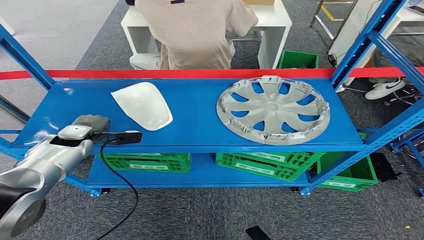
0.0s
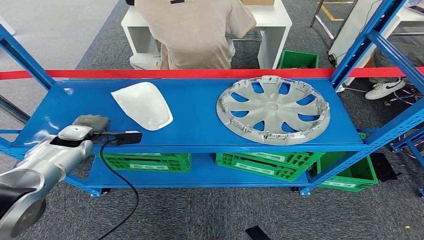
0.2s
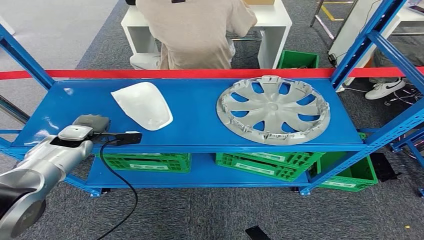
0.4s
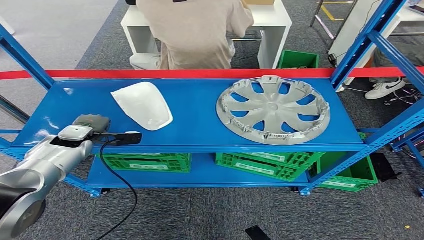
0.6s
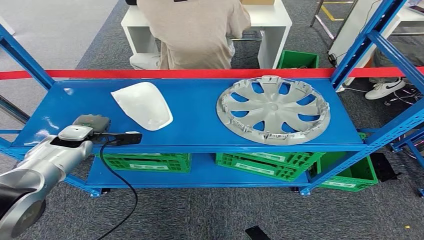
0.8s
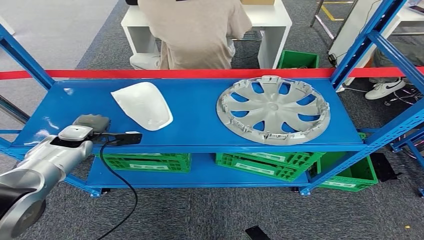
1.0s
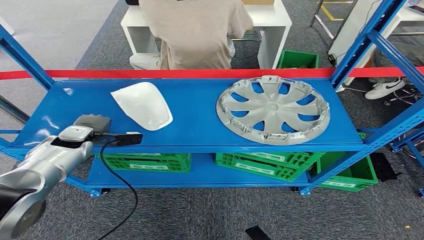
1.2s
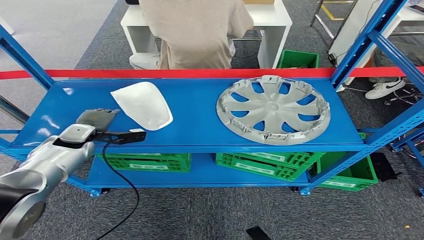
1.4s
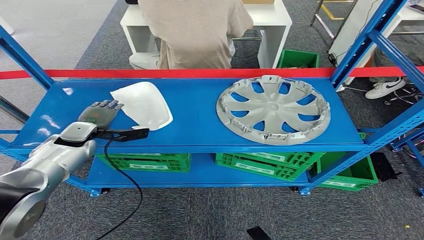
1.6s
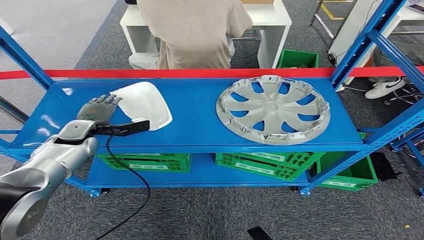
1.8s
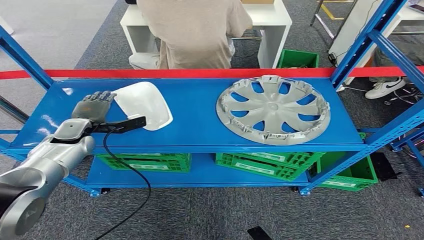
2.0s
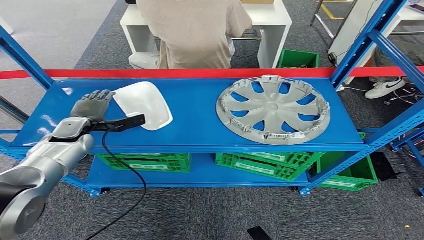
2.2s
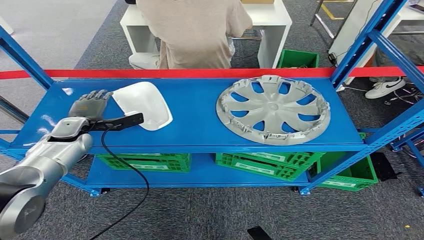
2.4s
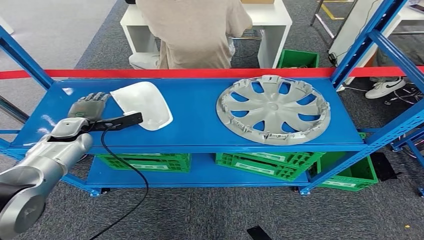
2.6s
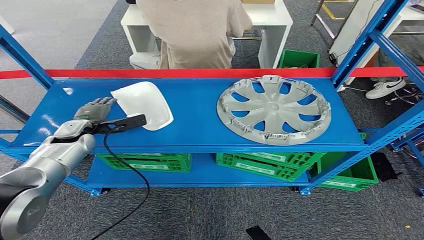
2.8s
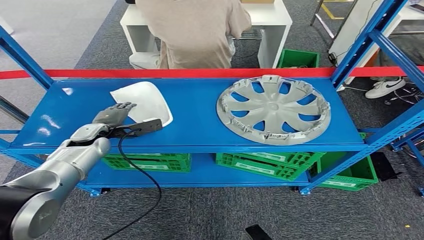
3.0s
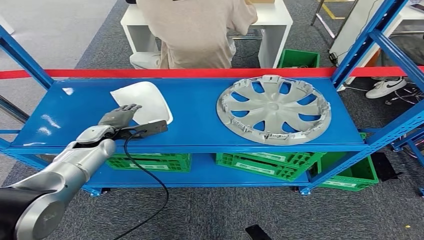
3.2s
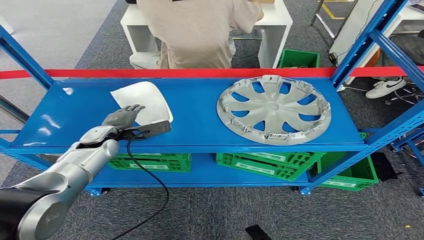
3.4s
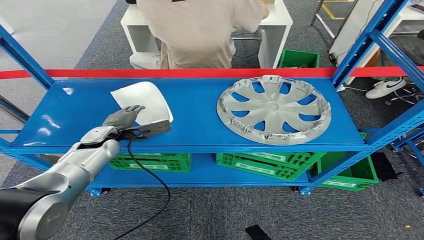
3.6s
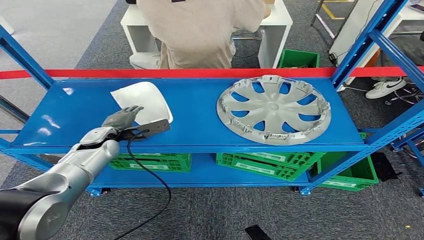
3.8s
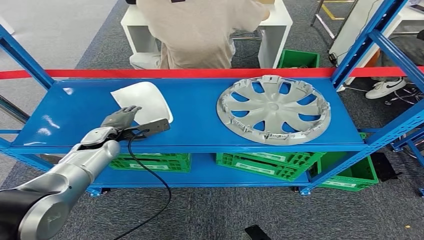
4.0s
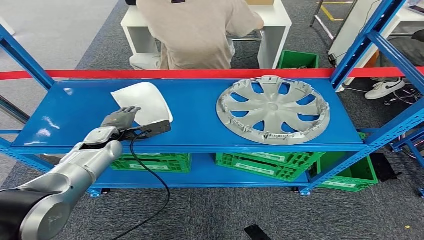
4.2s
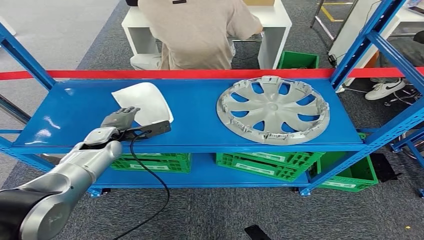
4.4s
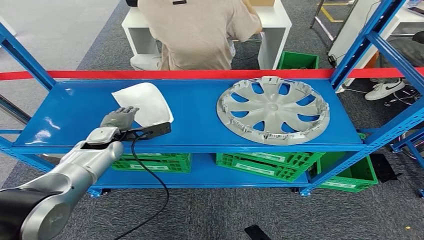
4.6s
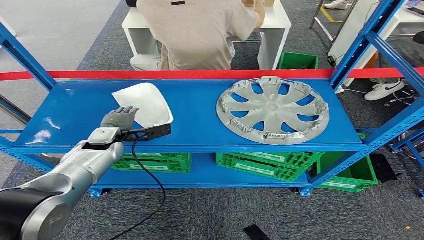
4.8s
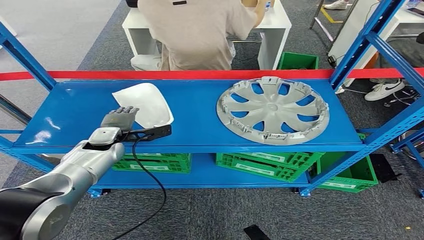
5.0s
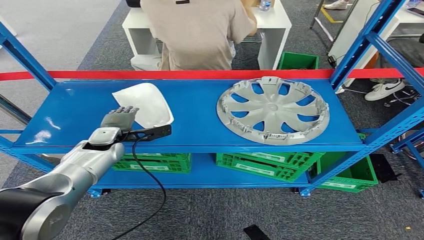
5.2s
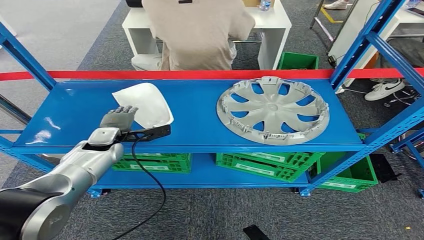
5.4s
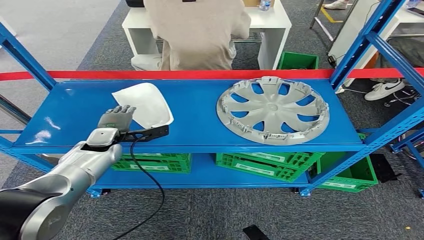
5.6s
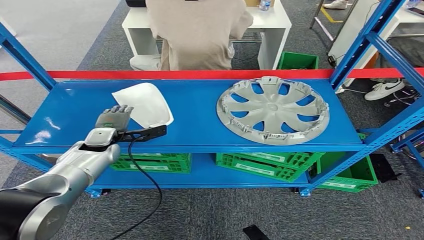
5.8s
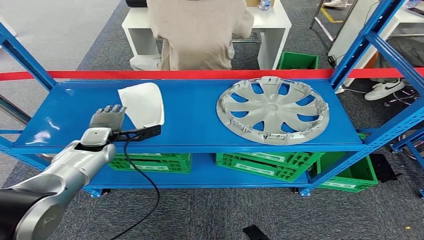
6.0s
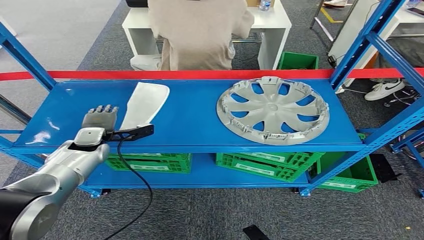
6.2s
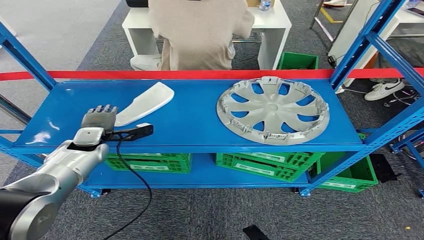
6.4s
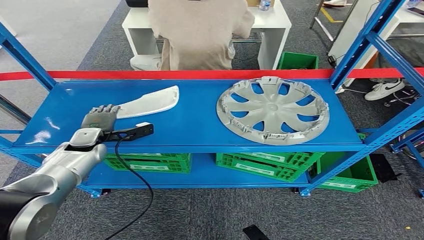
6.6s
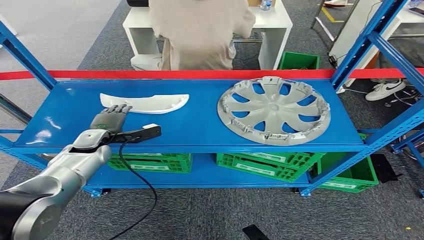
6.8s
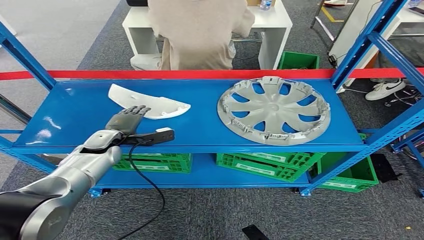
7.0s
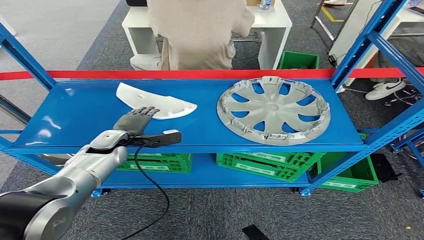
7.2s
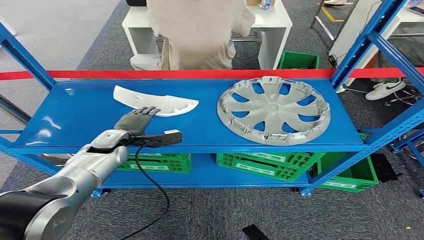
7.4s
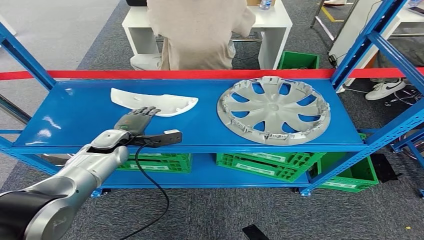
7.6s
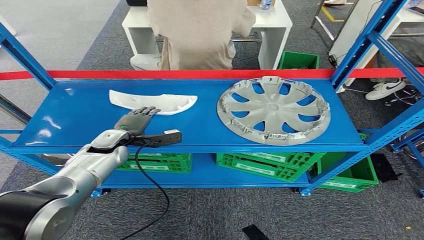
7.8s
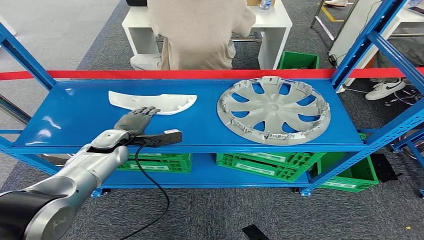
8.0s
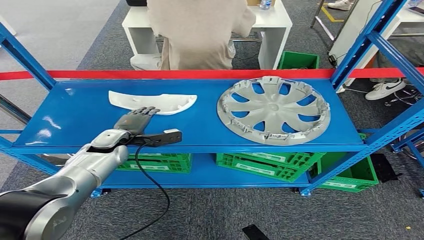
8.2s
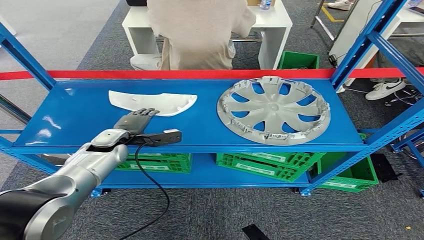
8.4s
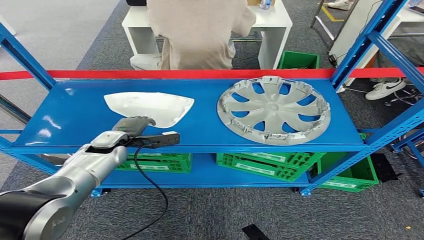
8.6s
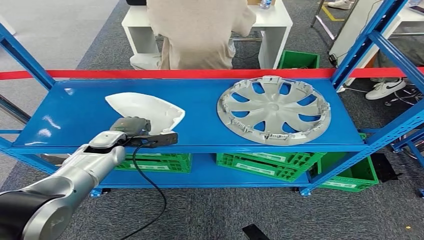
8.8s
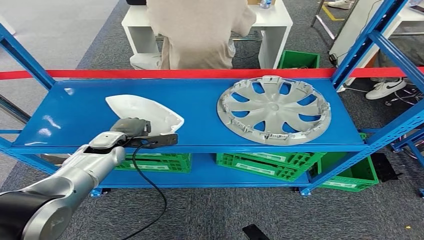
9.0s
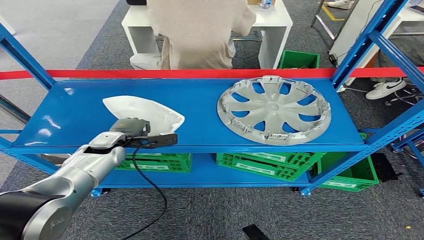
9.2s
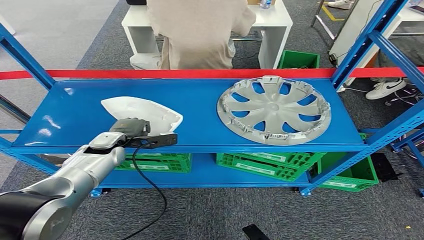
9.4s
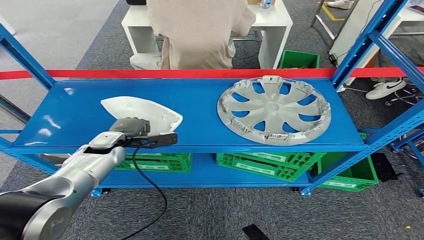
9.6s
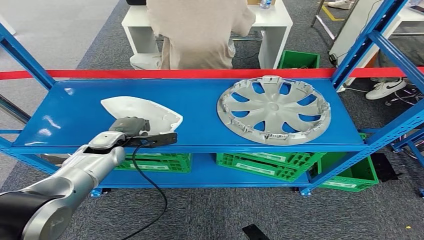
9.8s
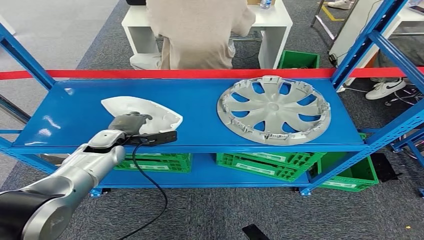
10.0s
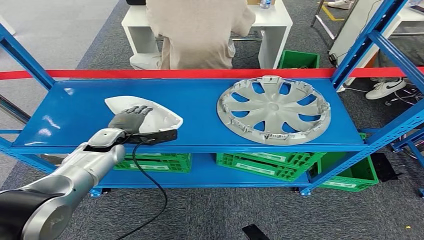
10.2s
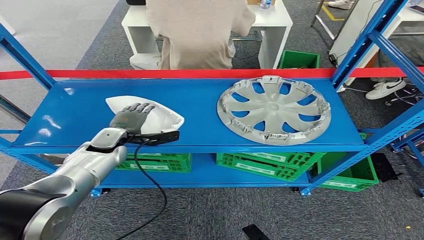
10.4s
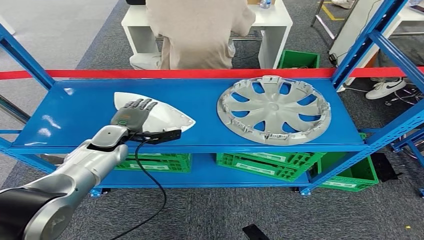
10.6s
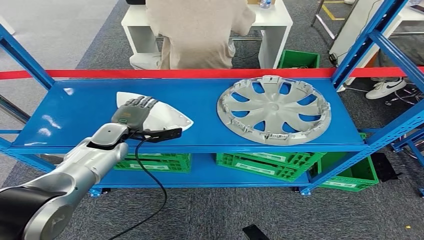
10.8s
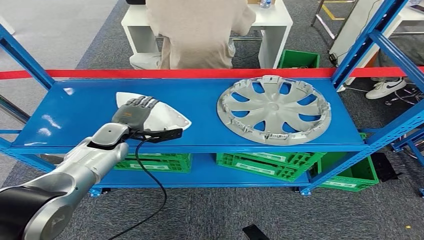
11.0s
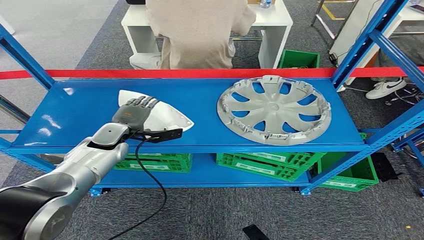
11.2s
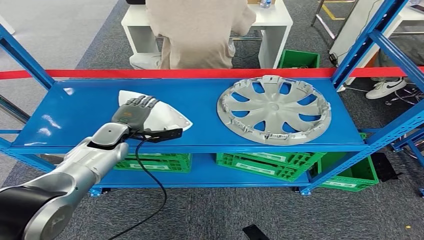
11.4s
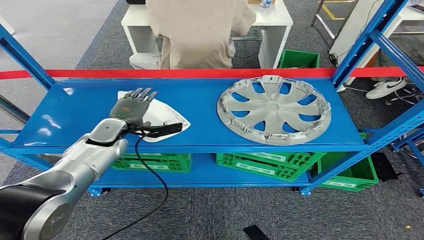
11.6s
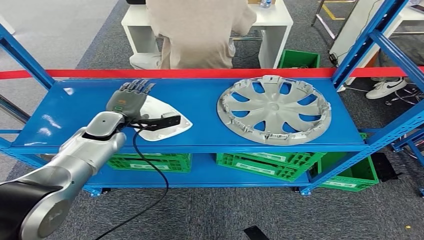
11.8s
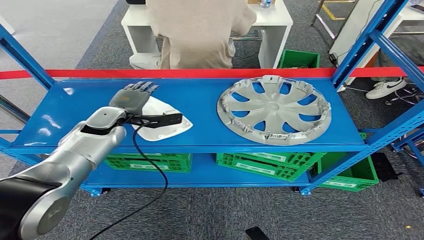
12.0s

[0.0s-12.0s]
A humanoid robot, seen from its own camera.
0.0s to 1.6s: The hands stay close to where they were, moving slightly.
3.0s to 6.0s: There are only small adjustments of the hands.
7.6s to 10.4s: The hands stay close to where they were, moving slightly.
10.4s to 12.0s: The left hand shifts roughly 5 cm upward.

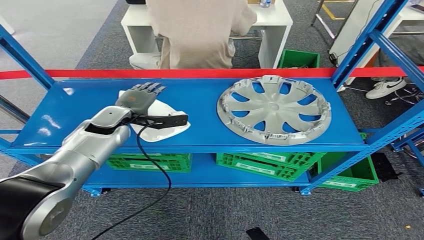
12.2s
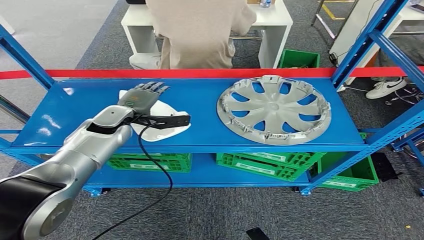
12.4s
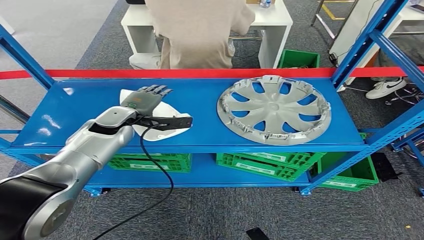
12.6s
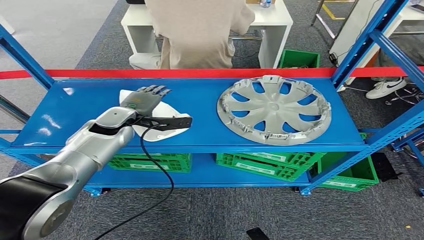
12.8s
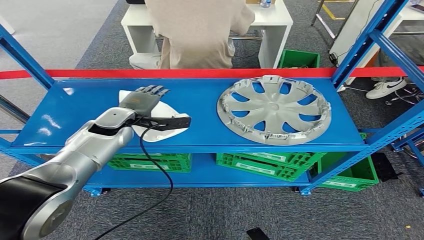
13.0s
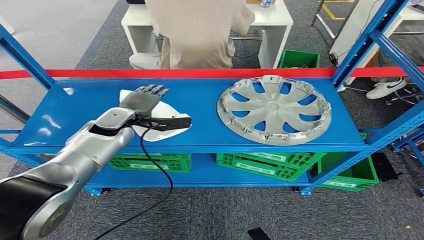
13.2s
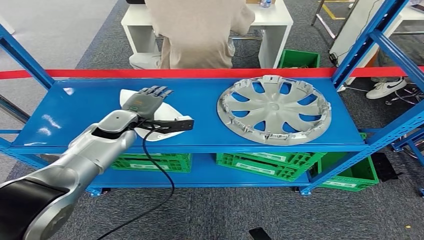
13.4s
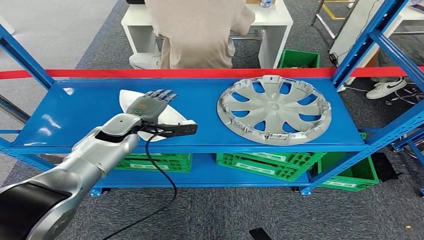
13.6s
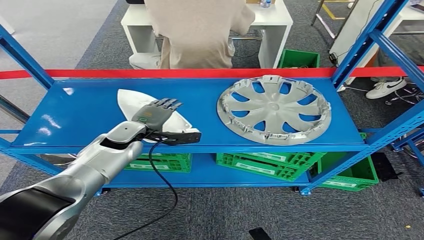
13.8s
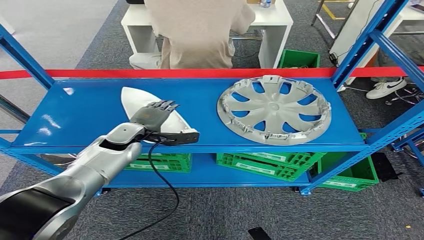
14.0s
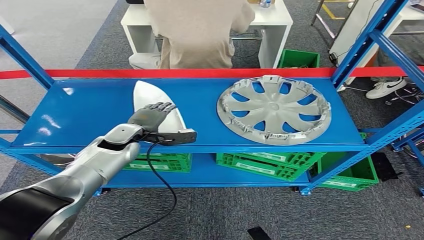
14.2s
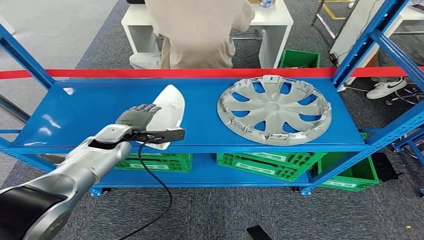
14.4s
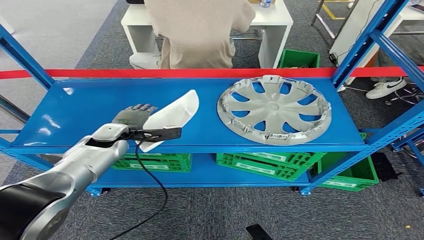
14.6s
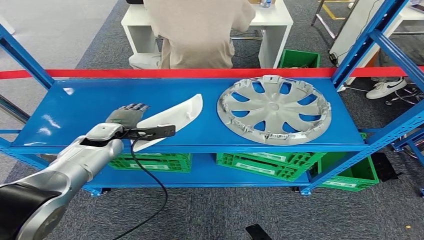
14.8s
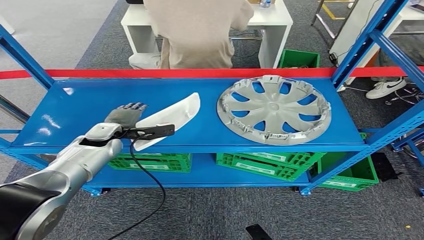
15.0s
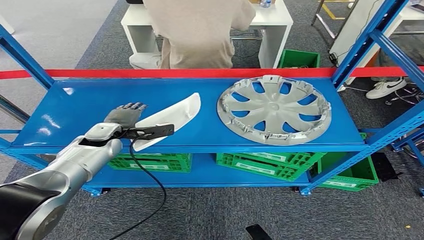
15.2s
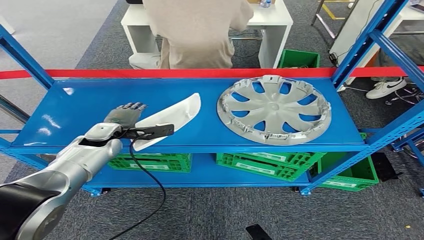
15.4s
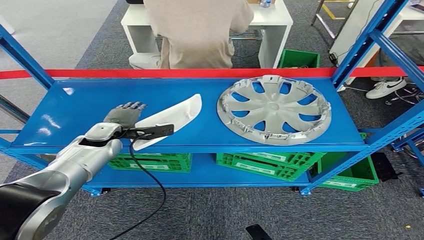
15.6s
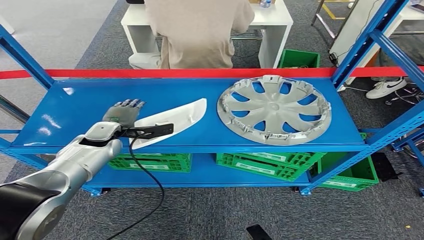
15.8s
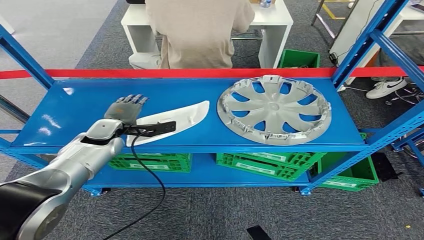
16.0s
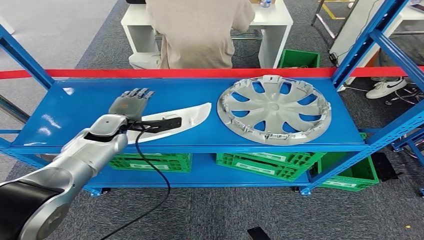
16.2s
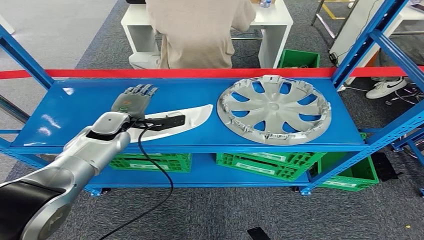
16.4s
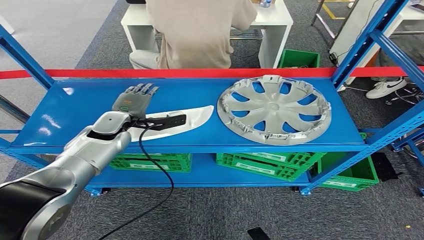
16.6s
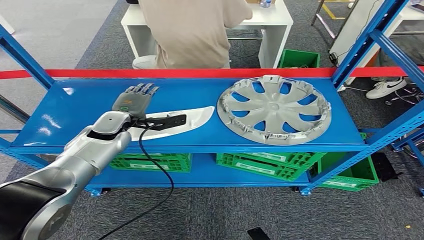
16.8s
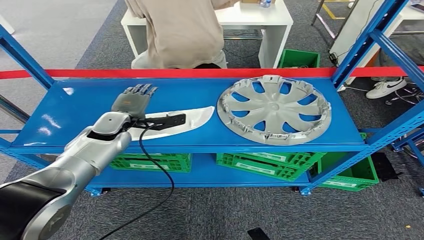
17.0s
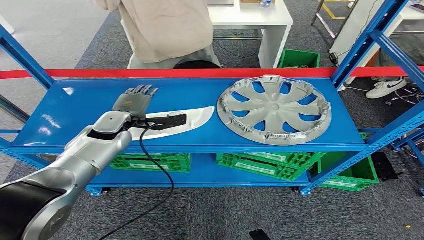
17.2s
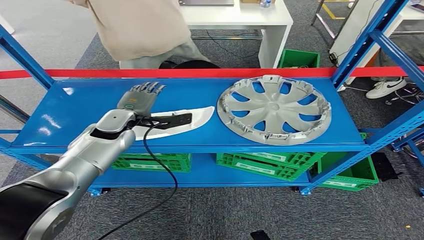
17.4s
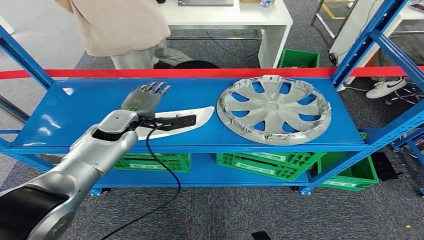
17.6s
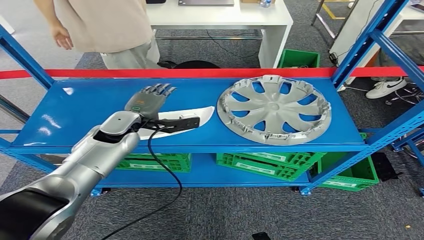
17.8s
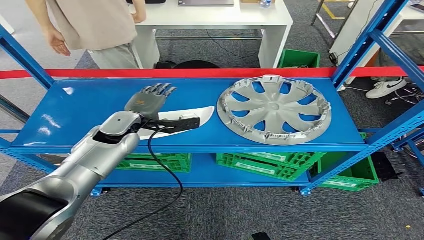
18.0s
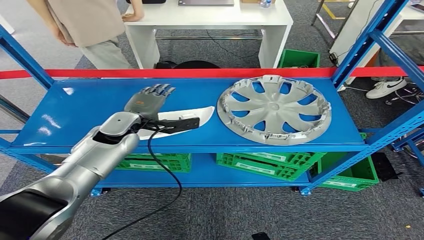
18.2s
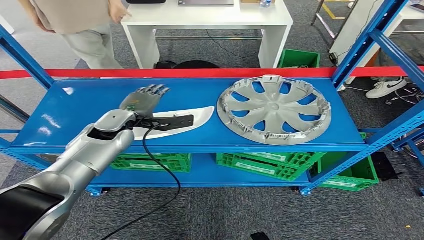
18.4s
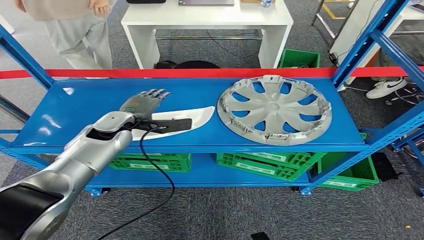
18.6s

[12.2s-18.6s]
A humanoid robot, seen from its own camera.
12.2s to 13.8s: The left hand moves about 5 cm.
13.8s to 15.4s: The left hand moves to the left, about 5 cm.
15.4s to 17.0s: There are only small adjustments of the hands.
17.0s to 18.6s: There are only small adjustments of the hands.
